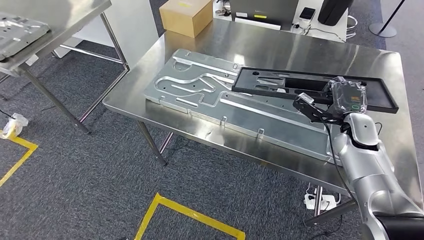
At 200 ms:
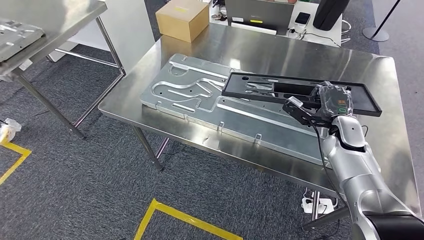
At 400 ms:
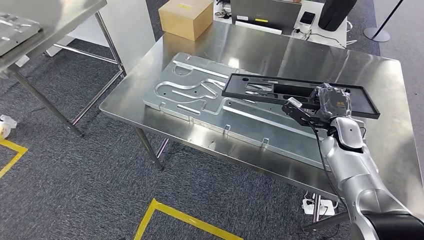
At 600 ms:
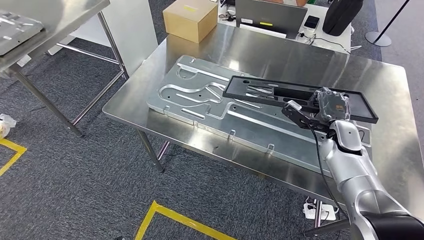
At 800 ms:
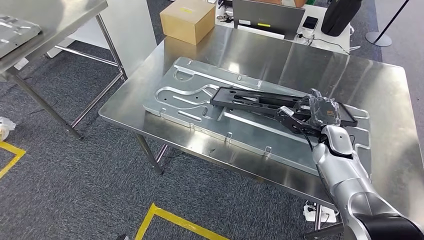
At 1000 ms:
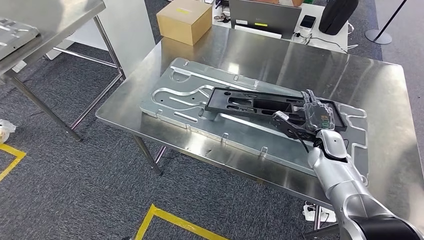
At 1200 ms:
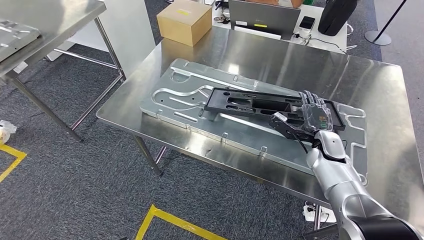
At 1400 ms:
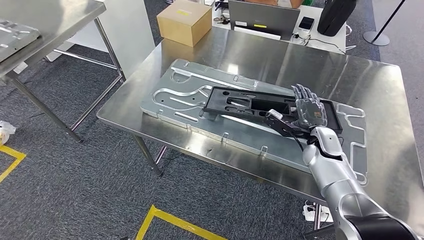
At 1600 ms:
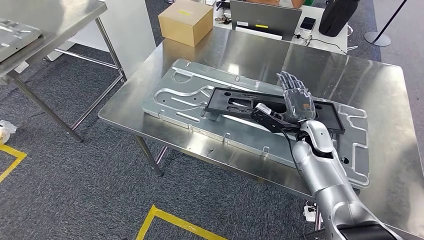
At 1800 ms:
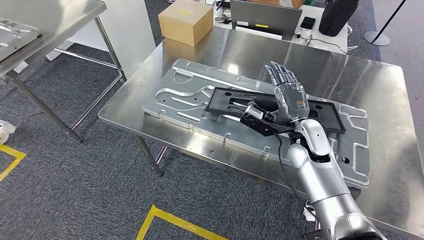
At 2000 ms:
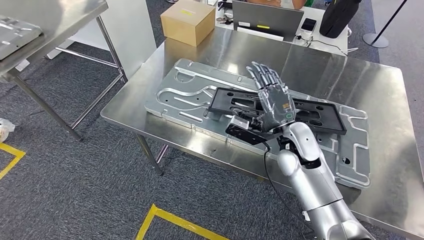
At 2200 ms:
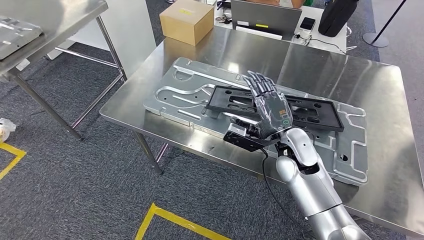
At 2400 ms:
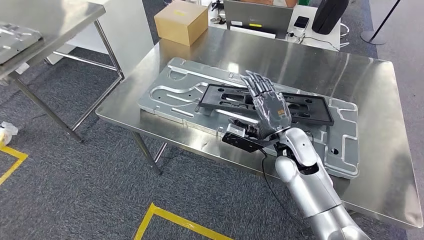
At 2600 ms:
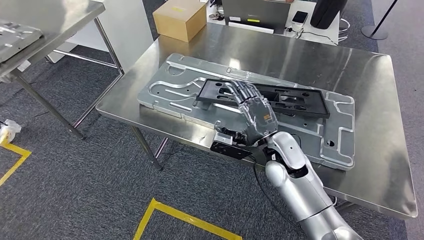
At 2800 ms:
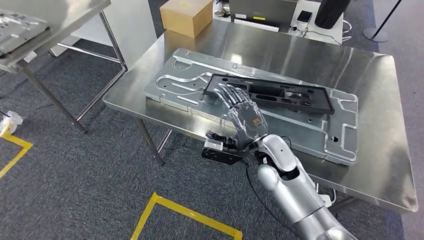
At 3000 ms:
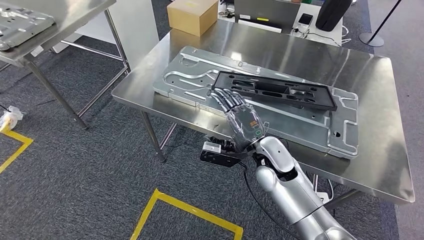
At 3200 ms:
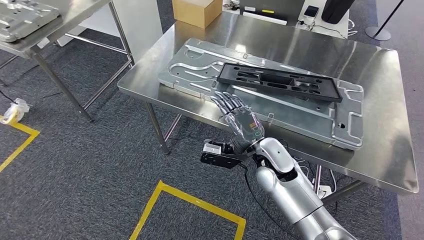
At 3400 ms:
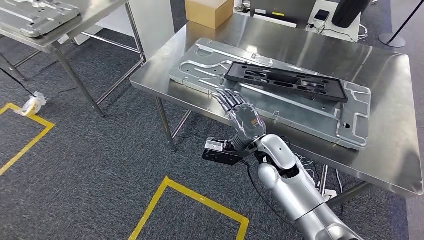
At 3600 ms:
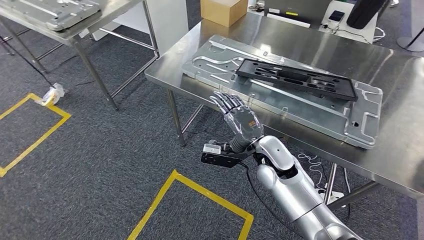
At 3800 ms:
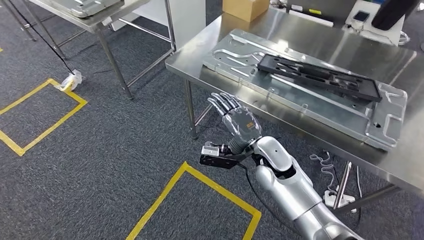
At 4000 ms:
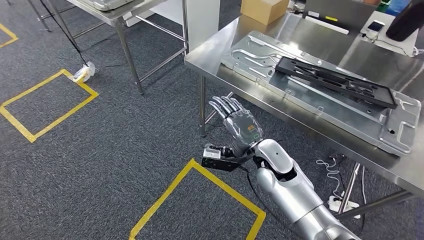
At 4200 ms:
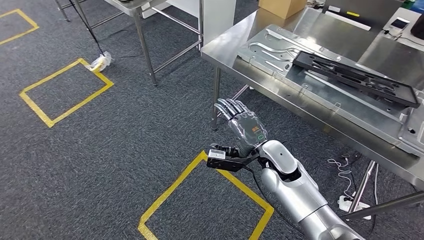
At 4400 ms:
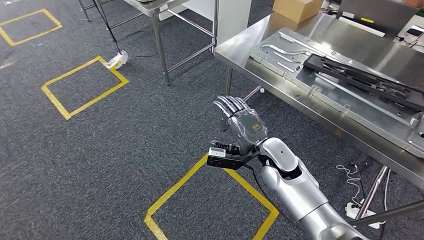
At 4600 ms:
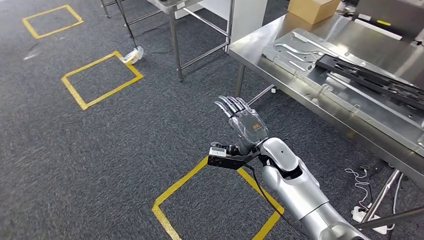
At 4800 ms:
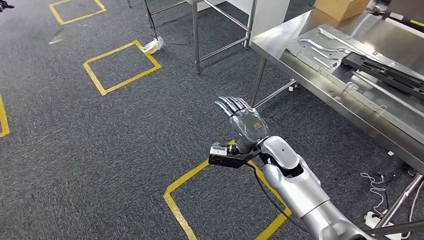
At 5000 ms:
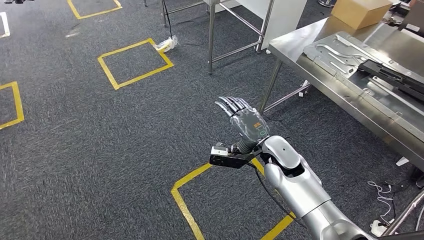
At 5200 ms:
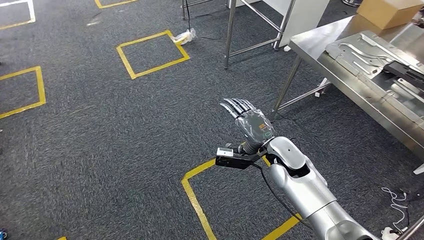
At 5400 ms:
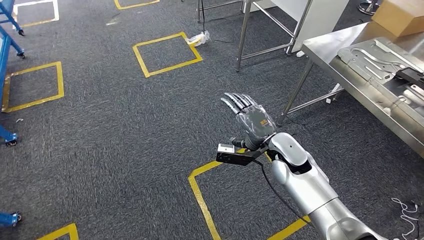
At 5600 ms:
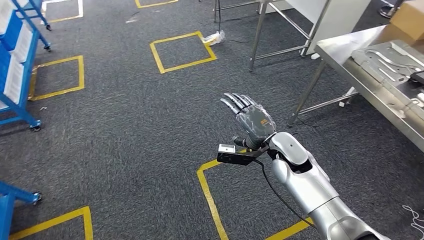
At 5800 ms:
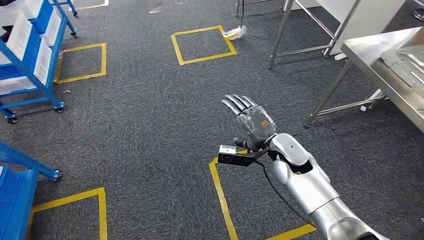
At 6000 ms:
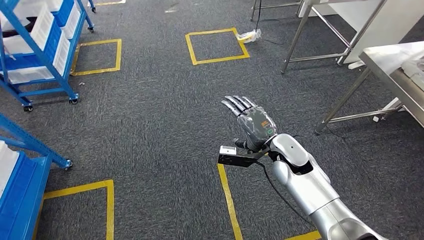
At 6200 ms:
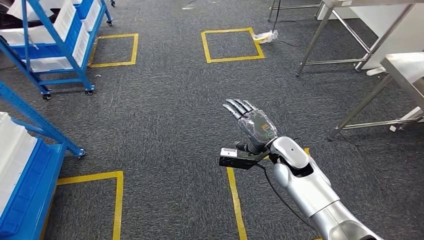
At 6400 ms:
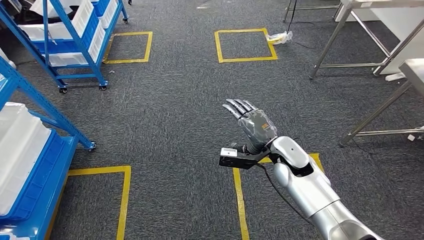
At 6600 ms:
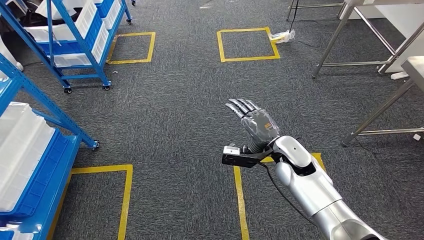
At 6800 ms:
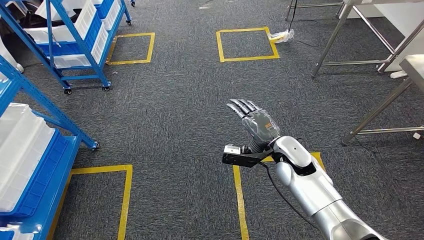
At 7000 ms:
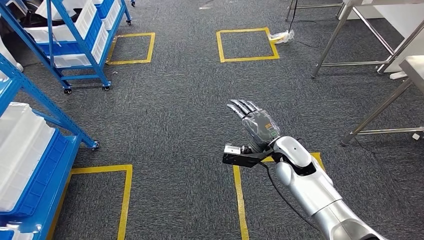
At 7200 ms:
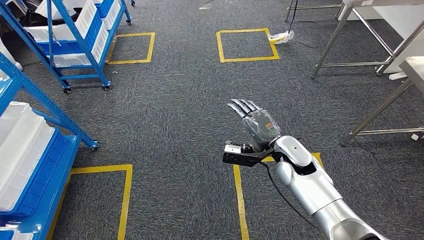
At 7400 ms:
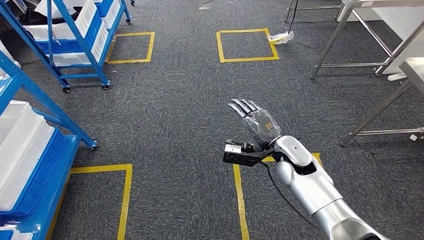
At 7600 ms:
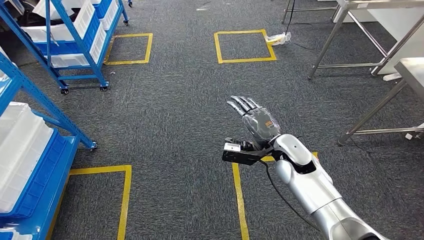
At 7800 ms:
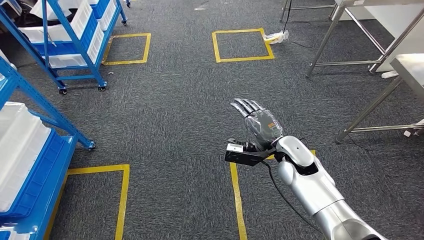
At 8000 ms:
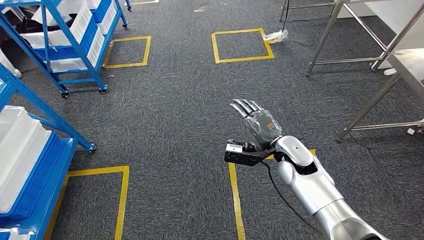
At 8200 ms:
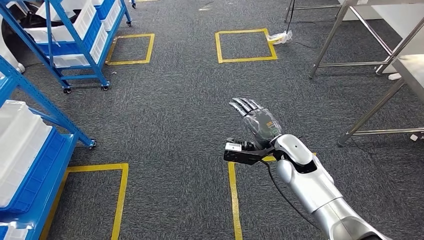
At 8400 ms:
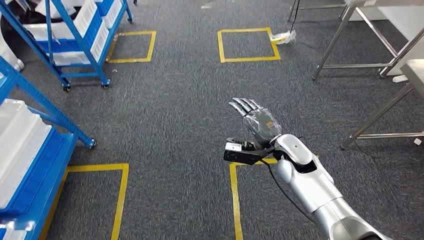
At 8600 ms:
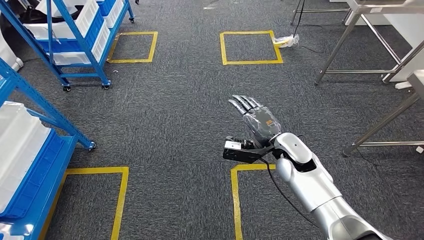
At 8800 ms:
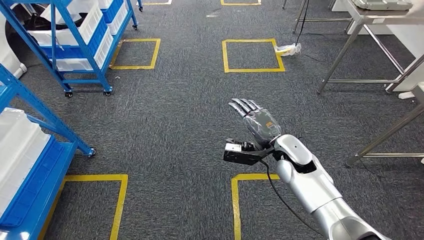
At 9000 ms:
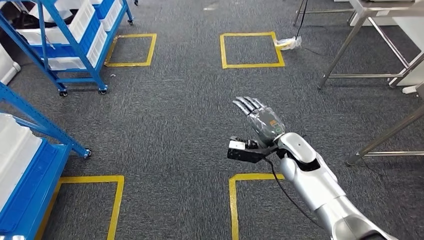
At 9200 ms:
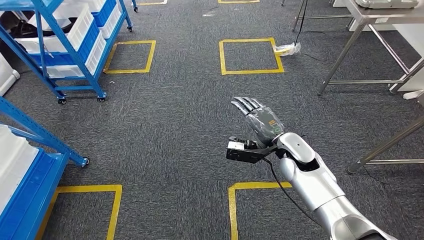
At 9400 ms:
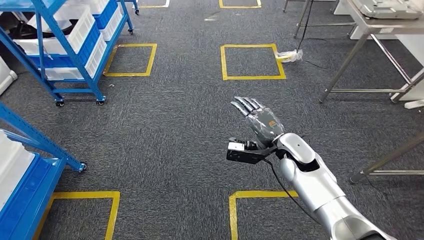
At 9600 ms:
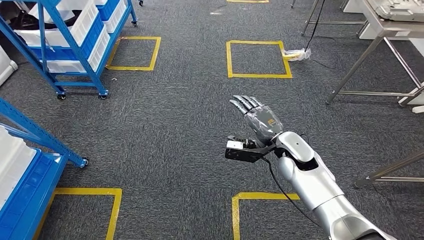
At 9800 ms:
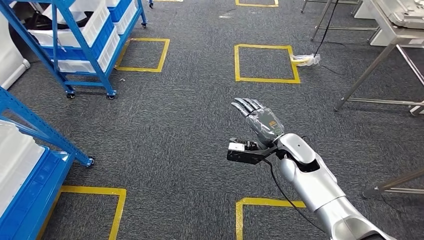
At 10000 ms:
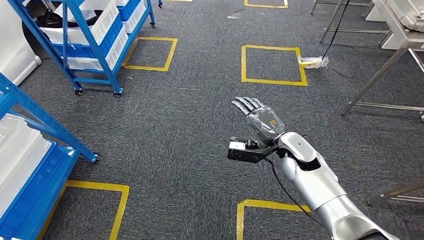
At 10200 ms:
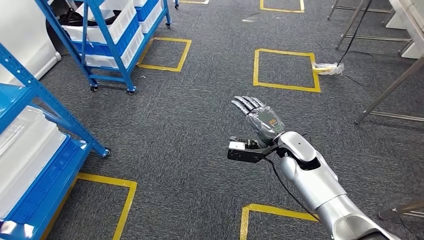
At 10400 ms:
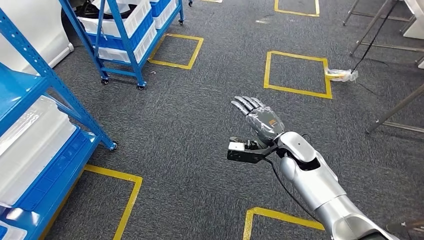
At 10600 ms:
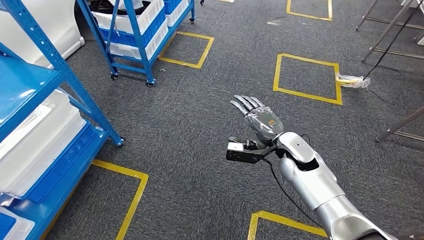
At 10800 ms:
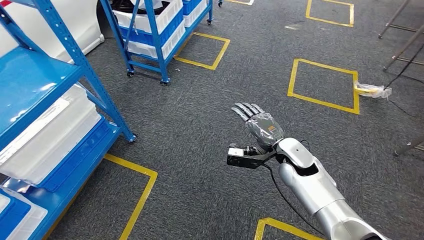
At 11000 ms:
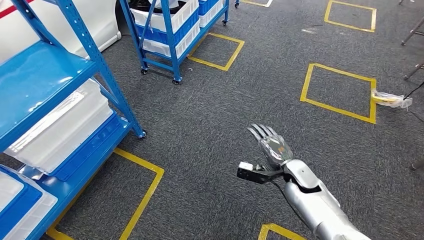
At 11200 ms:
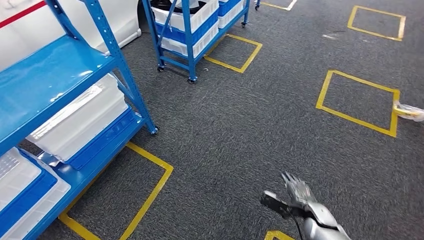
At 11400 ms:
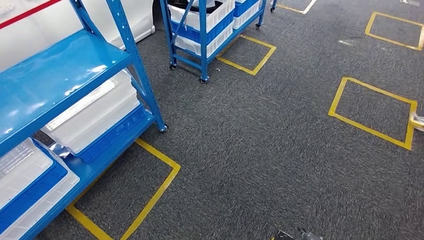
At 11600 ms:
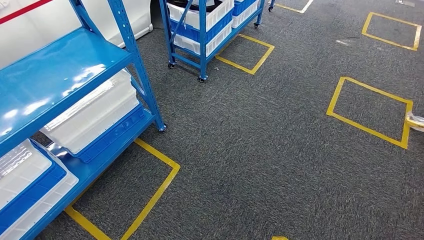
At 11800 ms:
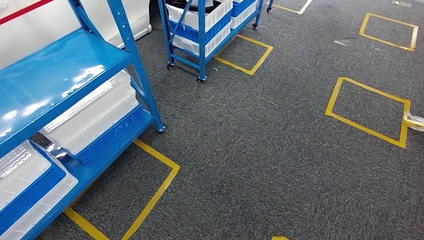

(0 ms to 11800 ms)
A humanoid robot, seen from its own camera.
Step, 0 ms - 3000 ms: Insert the large material into the corresponding slot on the workbench.

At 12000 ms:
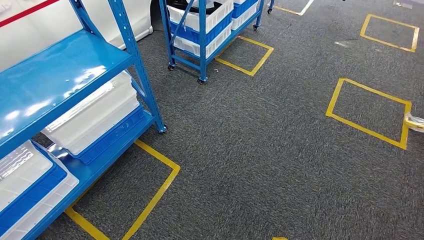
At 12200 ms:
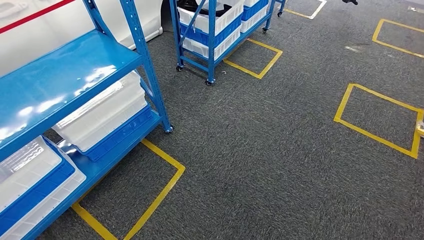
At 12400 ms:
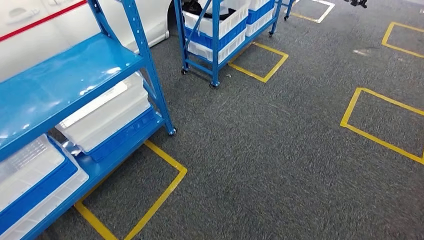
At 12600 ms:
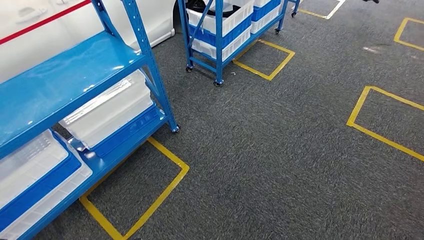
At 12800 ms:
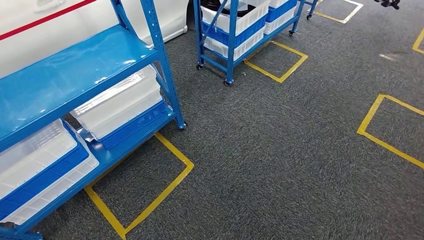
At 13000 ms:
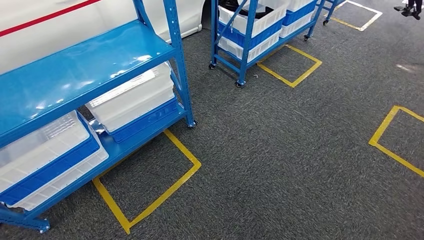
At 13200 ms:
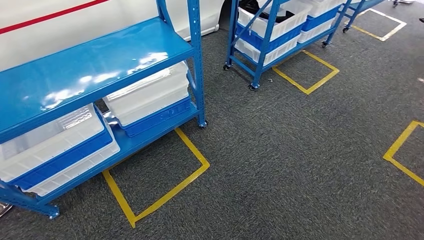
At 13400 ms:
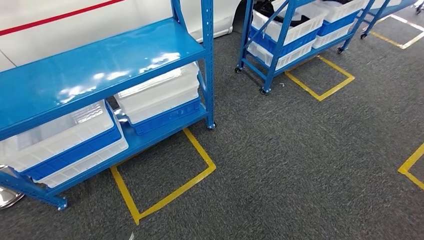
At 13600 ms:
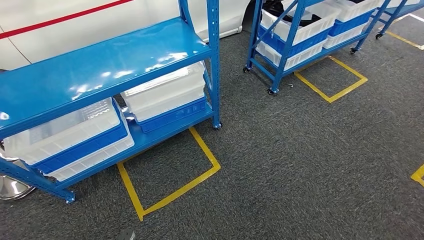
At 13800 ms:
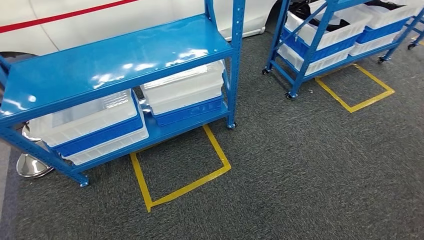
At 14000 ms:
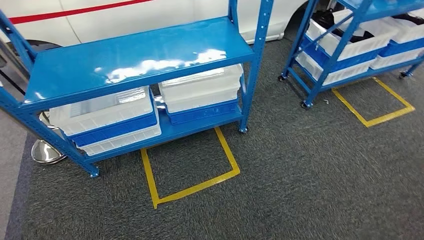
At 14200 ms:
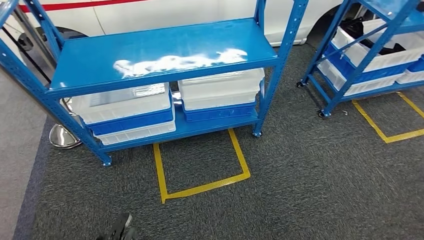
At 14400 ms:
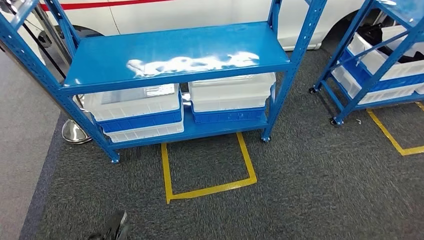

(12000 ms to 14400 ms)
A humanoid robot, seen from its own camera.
Step, 12000 ms - 14400 ms: Move to the initial position of the shelf.
